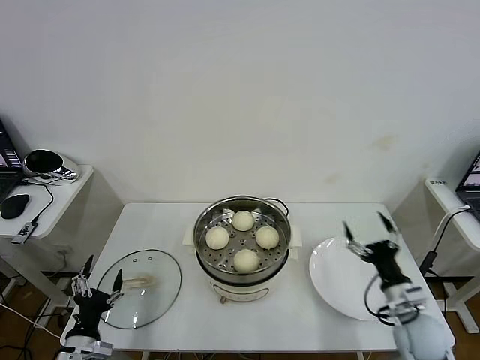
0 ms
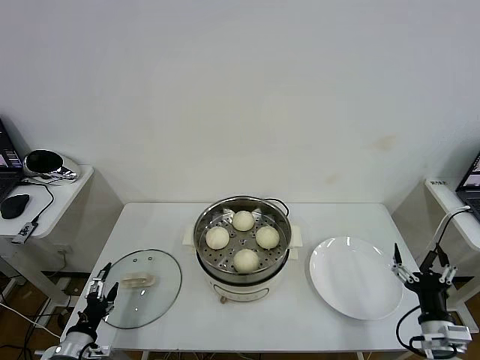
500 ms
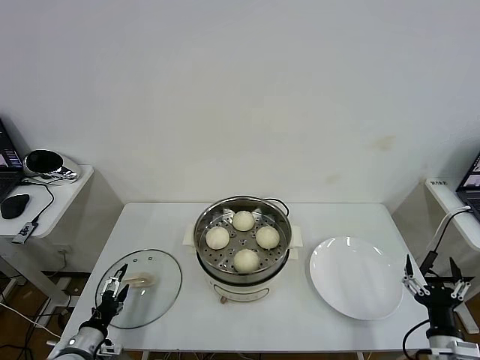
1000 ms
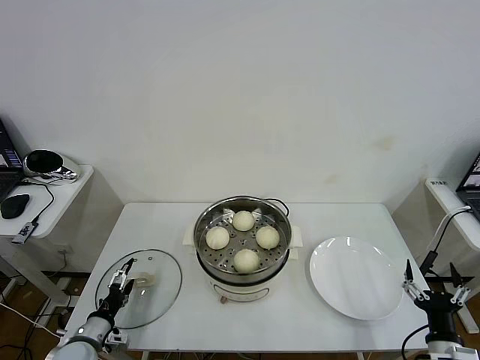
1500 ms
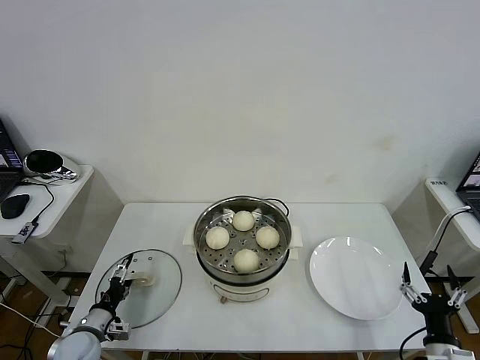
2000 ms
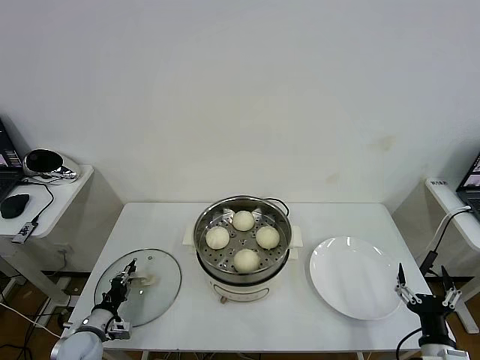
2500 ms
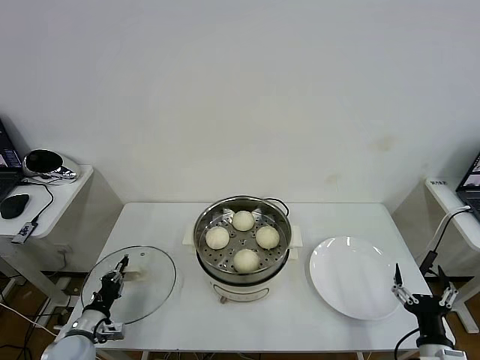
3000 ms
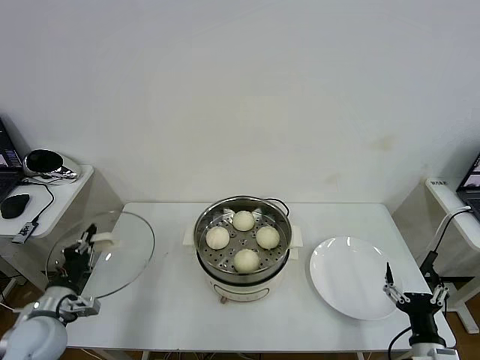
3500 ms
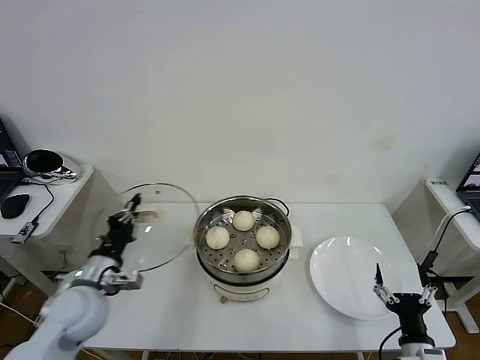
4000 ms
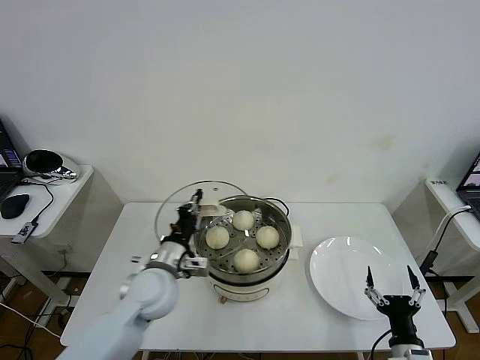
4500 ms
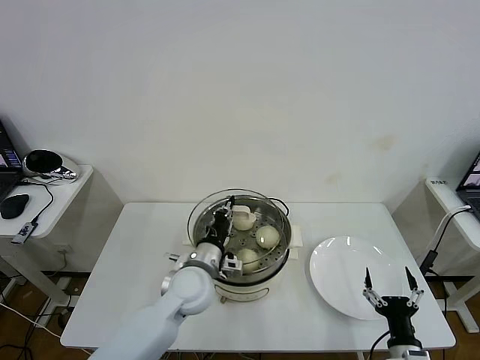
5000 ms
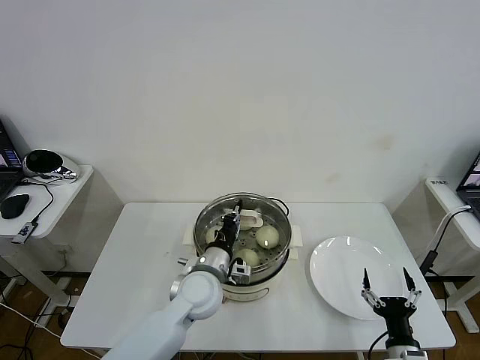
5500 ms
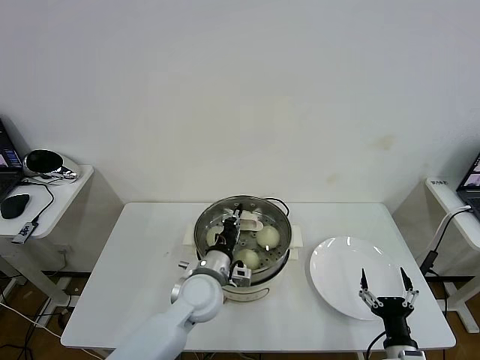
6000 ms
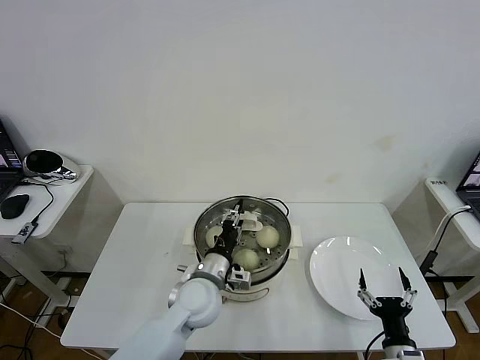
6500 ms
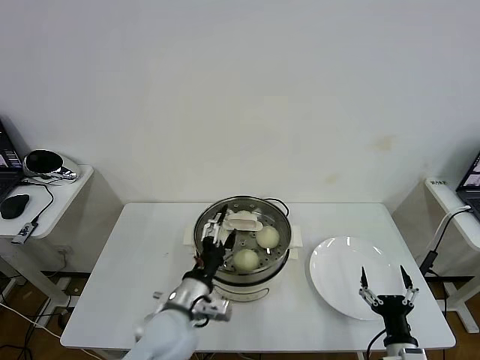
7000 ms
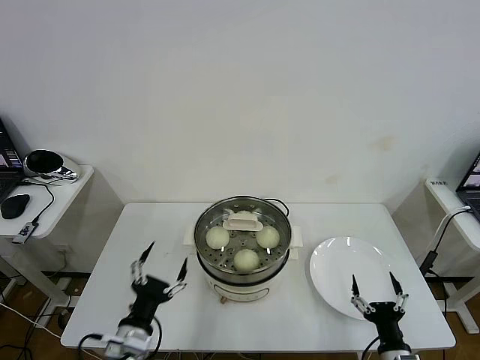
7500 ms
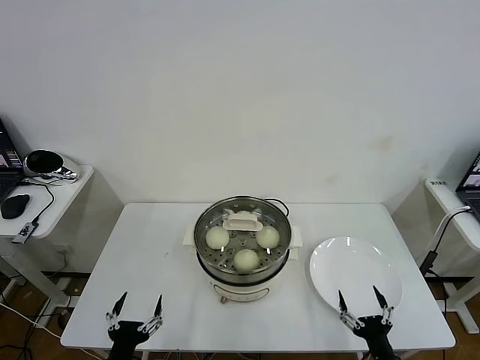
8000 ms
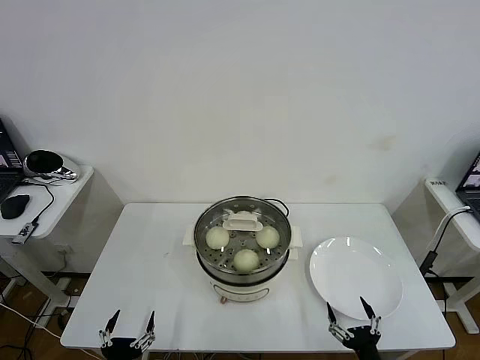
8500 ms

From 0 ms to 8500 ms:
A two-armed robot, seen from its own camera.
Task of the whole recording: take steamed baozi put them in steamer then cover it.
Step, from 0 ms to 2500 ms: Grasp the pot lid with left gripper.
Step, from 3000 ms to 6500 ms: Place the pot lid on the steamer with left gripper.
From 0 ms to 2000 ms: The right gripper goes some 15 cm backward. Meanwhile the left gripper moves forward, to the left and downward, approximately 10 cm.
From 2000 ms to 4000 ms: The left gripper travels upward by some 20 cm, and closes its fingers.
From 4000 ms to 6500 ms: The left gripper shifts about 25 cm to the right.
From 6500 ms to 8500 ms: The left gripper travels backward, to the left and downward by about 30 cm, and opens its fingers. Meanwhile the right gripper changes place by some 5 cm.

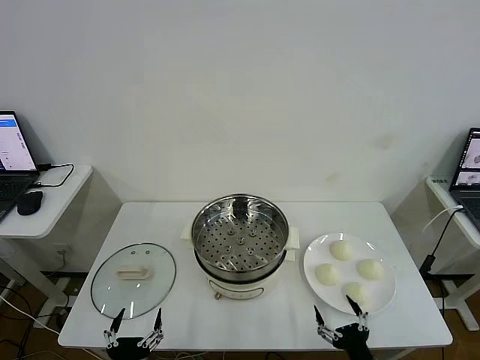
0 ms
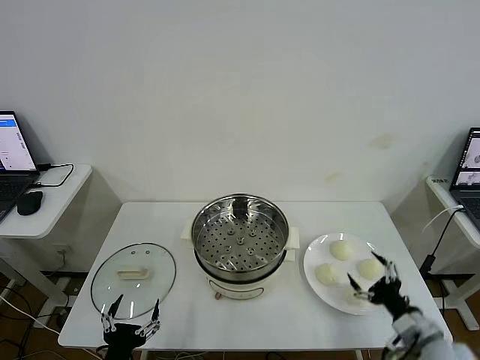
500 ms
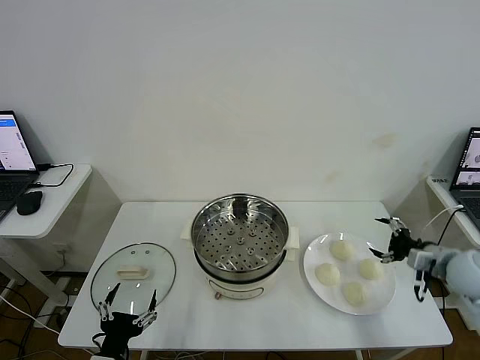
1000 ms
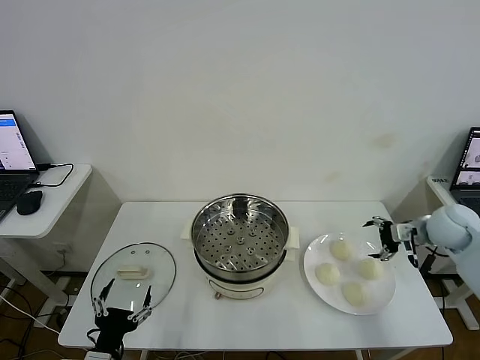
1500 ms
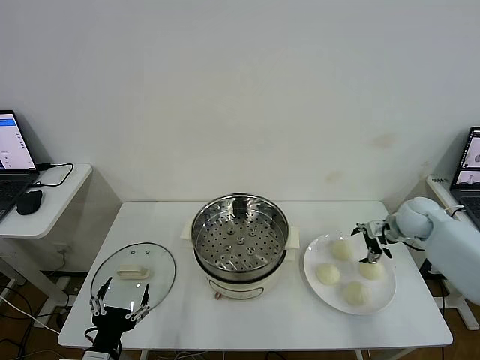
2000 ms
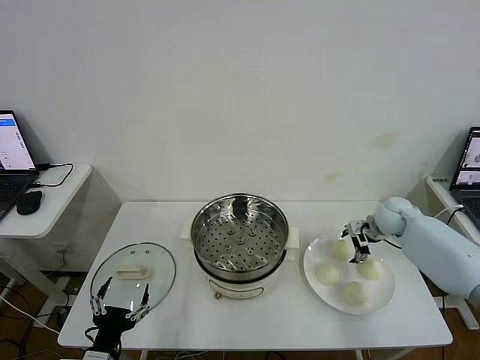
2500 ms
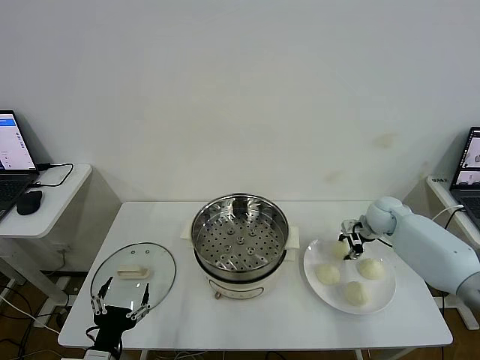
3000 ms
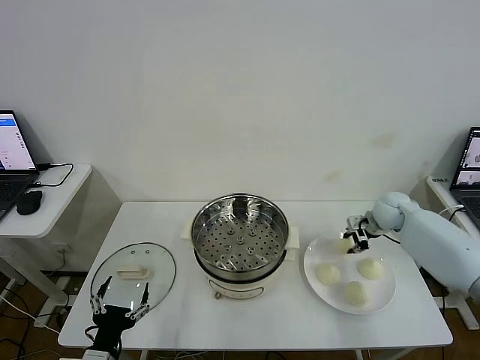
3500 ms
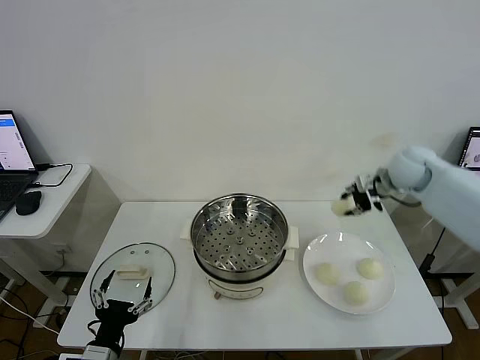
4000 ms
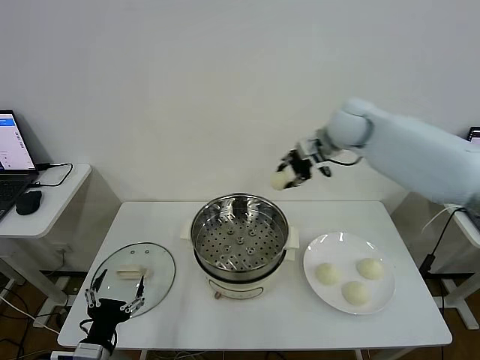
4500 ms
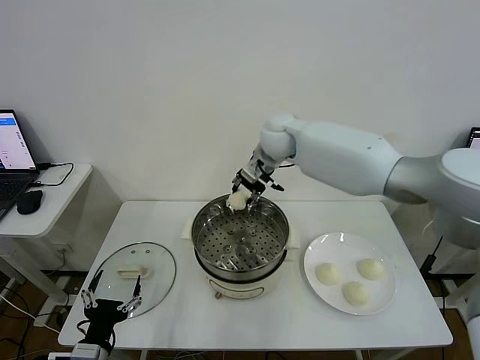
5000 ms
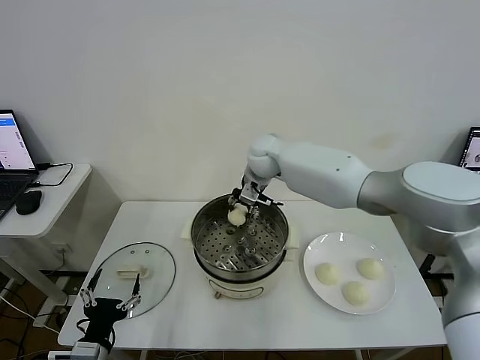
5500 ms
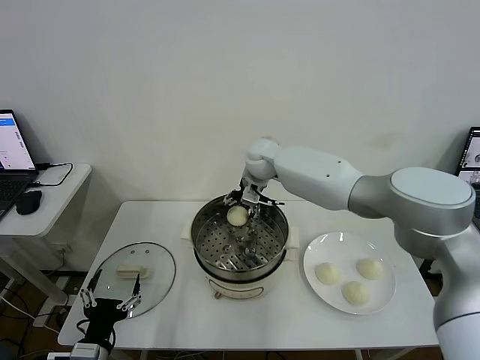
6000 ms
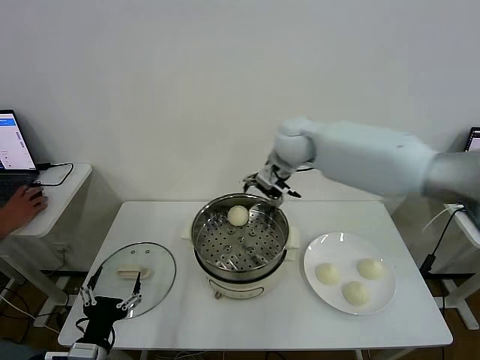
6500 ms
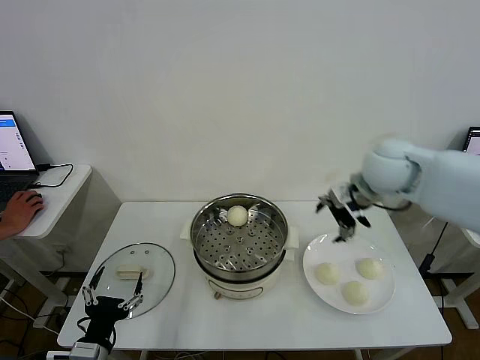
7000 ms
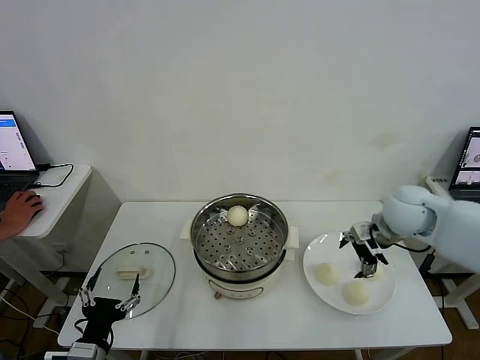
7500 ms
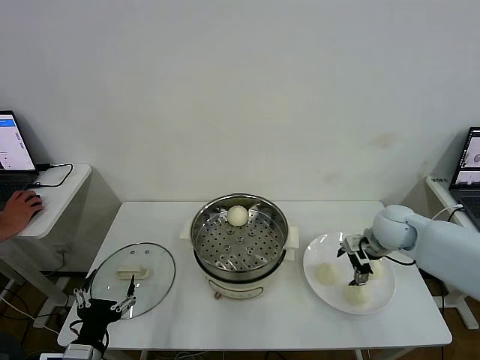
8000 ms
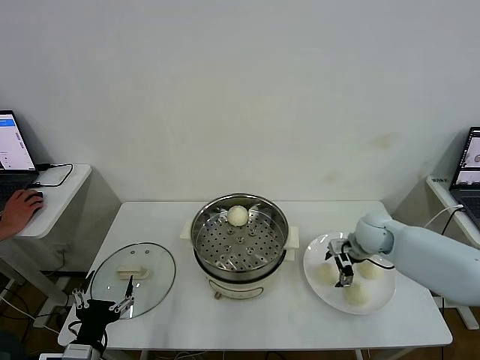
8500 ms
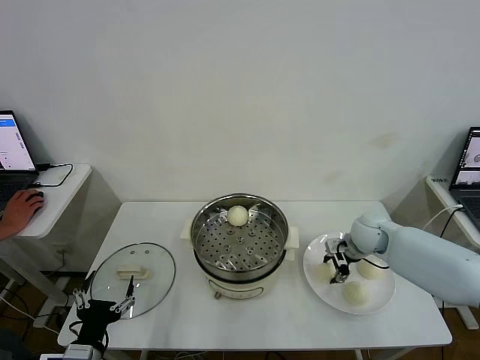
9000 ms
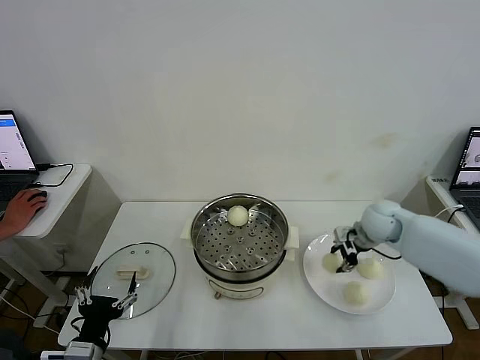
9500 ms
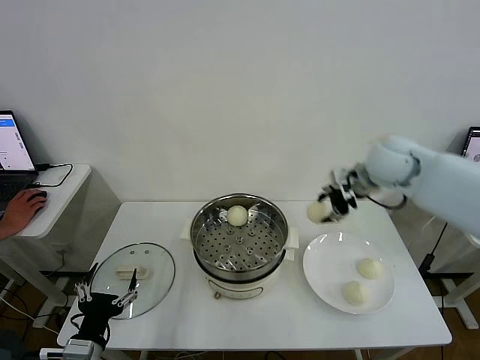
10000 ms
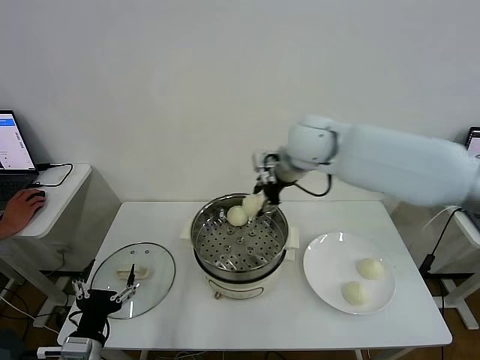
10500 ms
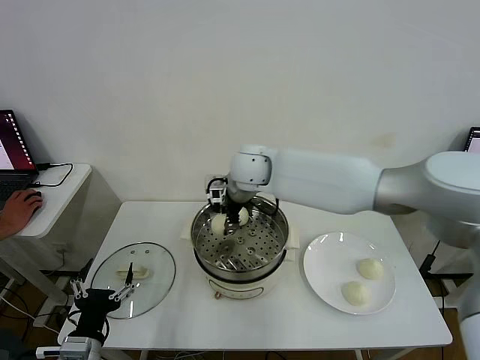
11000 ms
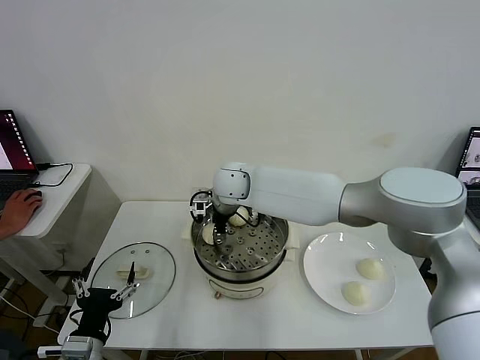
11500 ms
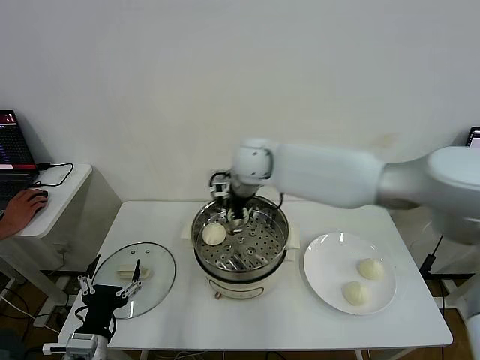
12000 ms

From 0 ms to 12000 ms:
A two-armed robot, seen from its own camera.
Task of the whole recording: take steamed baozi put them in steamer then cover it.
Step, from 0 ms to 2500 ms: Grasp the baozi in the plate with right gripper.
Step, from 3500 ms to 6000 ms: Place the baozi on the steamer with right gripper.
Step, from 6500 ms to 9000 ms: Grasp the baozi in the plate with right gripper.
Step, from 9500 ms to 11500 ms: Place the baozi on the steamer with right gripper.
From 2000 ms to 4000 ms: The right gripper is displaced upward by approximately 15 cm, and closes up.
From 4000 ms to 6000 ms: The right gripper moves to the left, some 30 cm, and opens.
From 6000 ms to 8000 ms: The right gripper shifts about 30 cm to the right and backward.
From 8000 ms to 10000 ms: The right gripper goes roughly 20 cm upward and to the left, and closes up.
From 10000 ms to 12000 ms: The right gripper shifts roughly 25 cm to the left, and opens its fingers.

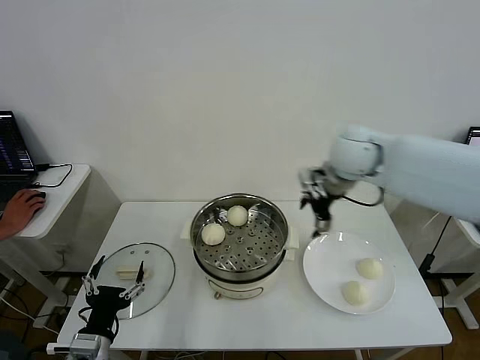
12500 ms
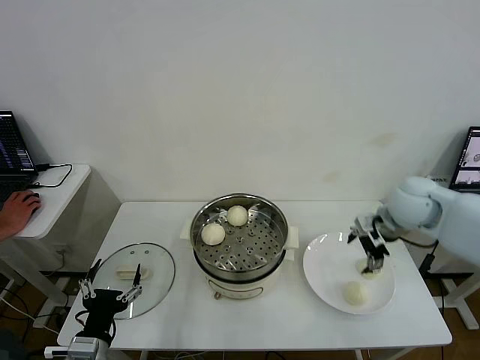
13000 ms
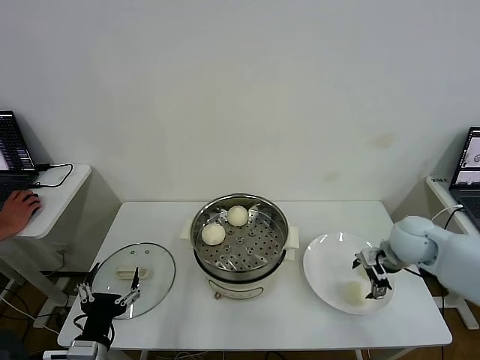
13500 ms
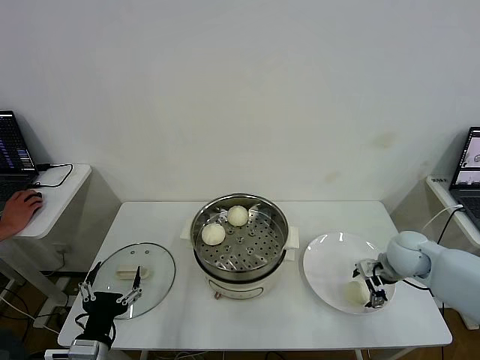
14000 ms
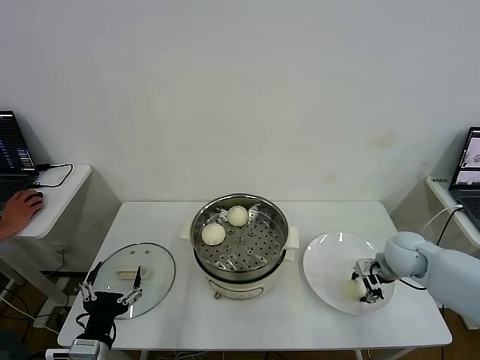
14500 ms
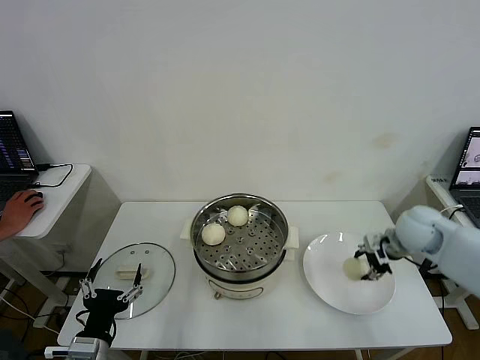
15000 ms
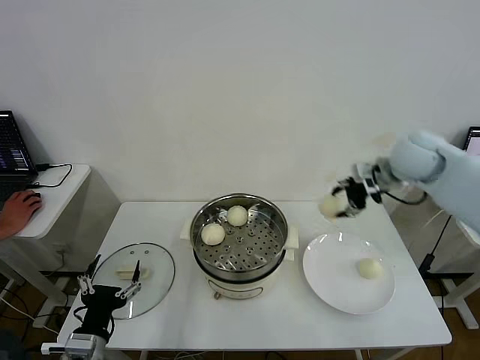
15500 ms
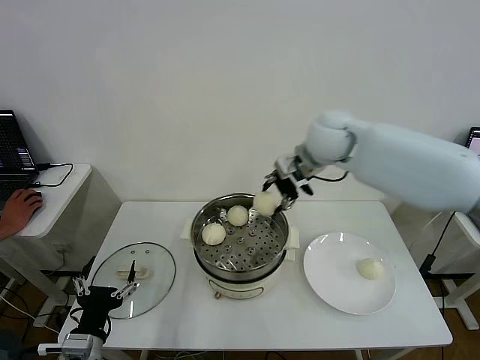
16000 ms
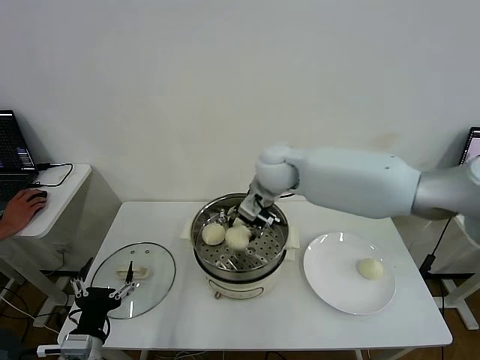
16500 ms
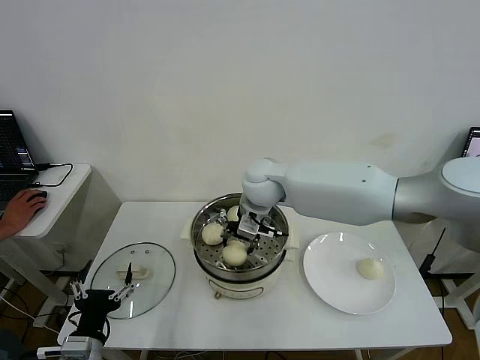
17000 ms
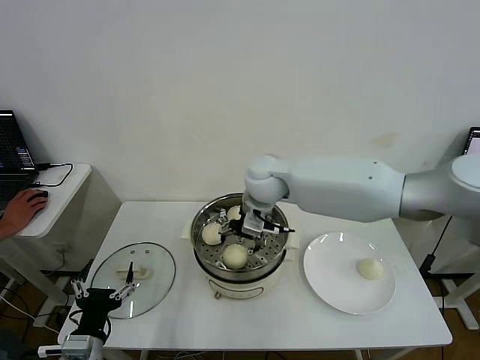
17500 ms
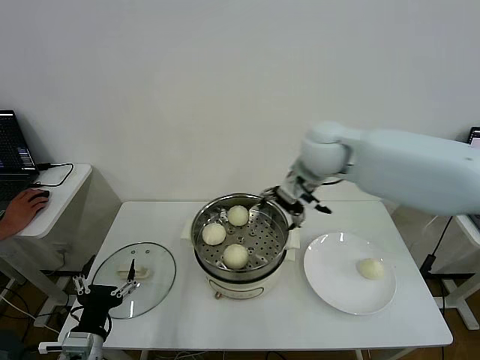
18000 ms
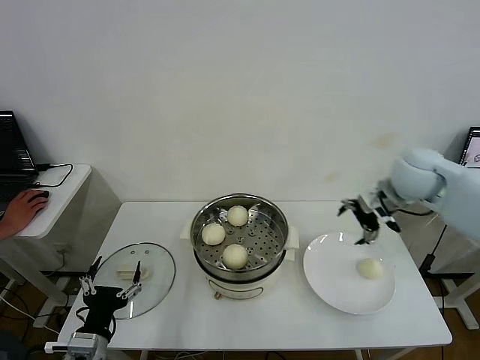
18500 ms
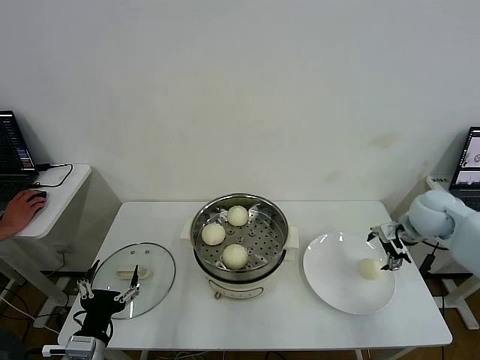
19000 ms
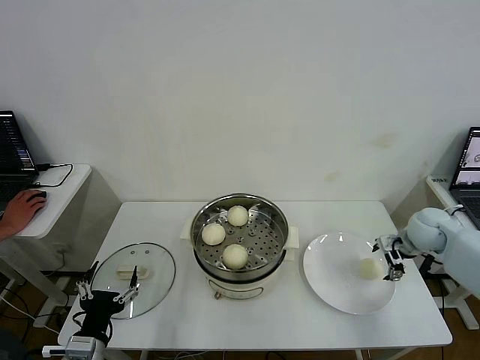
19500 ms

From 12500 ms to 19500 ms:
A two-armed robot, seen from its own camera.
Task of the whole recording: take steamed baozi put them in steamer then cover it.
Step, from 12500 ms to 14500 ms: Grasp the baozi in the plate with right gripper.
Step, from 15000 ms to 17500 ms: Place the baozi on the steamer with right gripper.
From 12500 ms to 14500 ms: The right gripper shifts about 25 cm downward and to the right, and closes.
From 14500 ms to 16000 ms: The right gripper heads upward, to the left and forward, covering about 35 cm.
From 16000 ms to 17500 ms: The right gripper shifts approximately 15 cm to the left and downward, and opens up.
From 17500 ms to 19500 ms: The right gripper shifts some 40 cm to the right.
